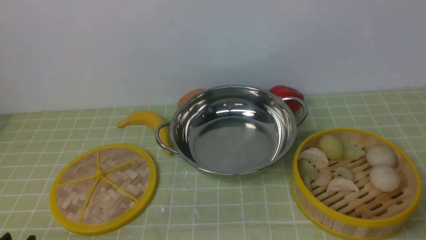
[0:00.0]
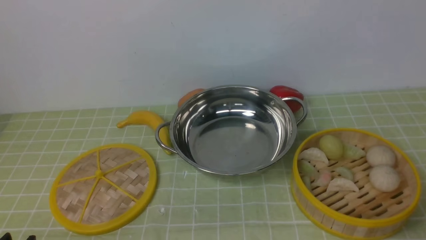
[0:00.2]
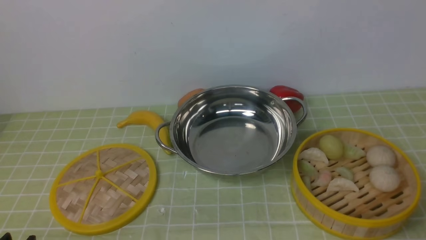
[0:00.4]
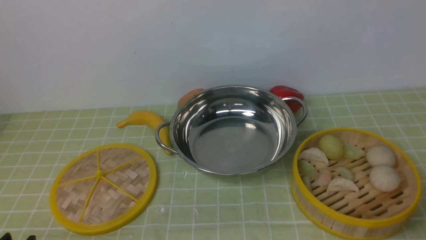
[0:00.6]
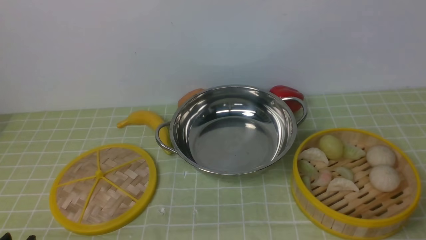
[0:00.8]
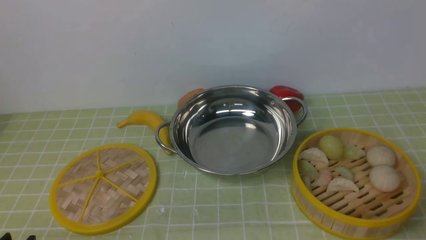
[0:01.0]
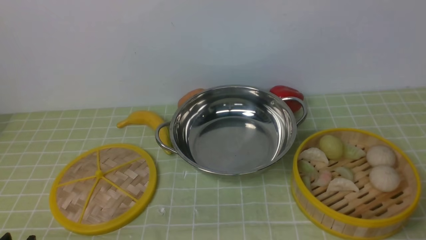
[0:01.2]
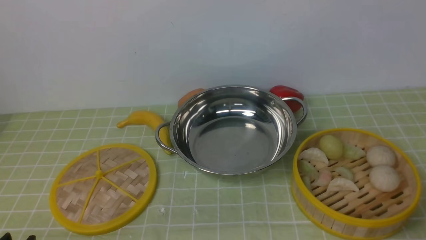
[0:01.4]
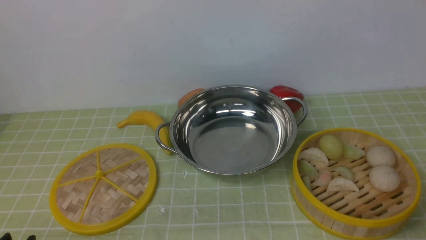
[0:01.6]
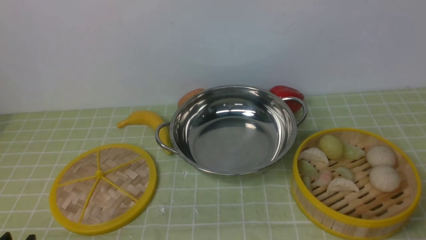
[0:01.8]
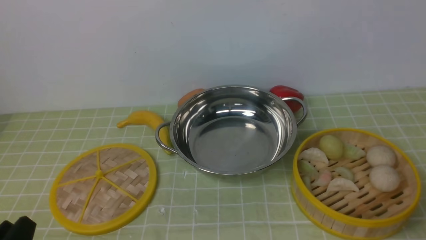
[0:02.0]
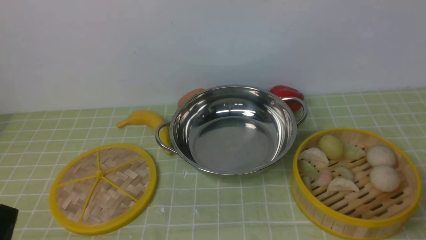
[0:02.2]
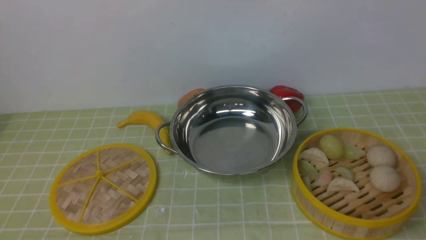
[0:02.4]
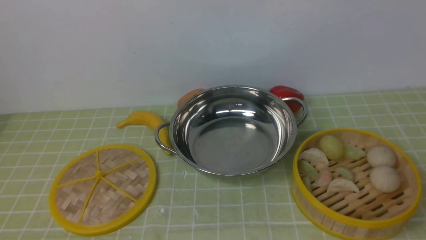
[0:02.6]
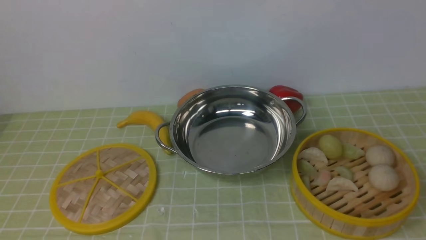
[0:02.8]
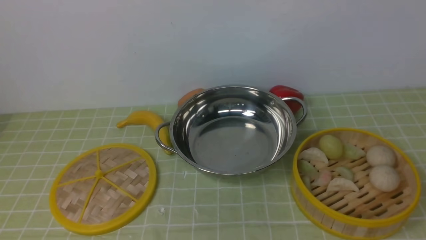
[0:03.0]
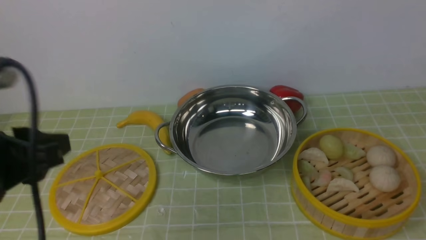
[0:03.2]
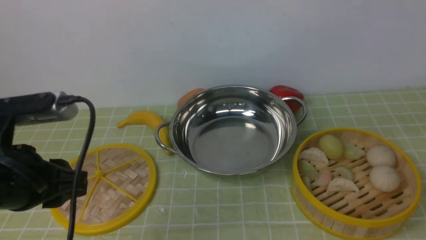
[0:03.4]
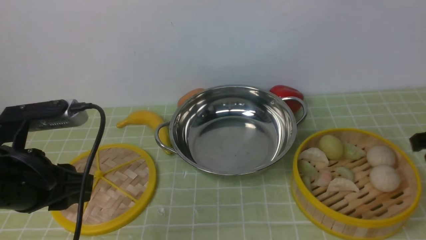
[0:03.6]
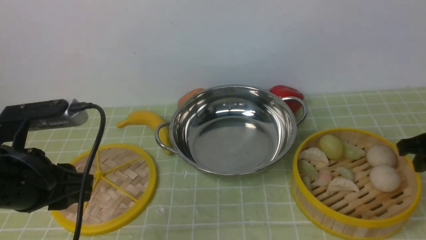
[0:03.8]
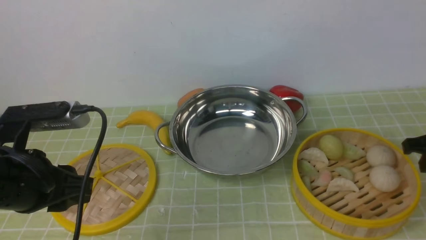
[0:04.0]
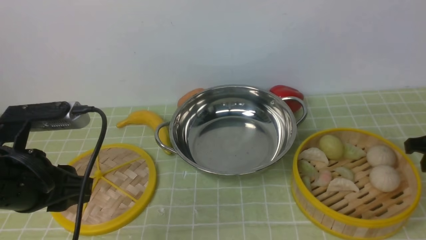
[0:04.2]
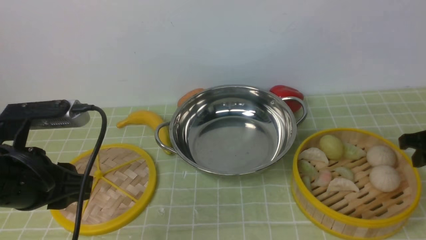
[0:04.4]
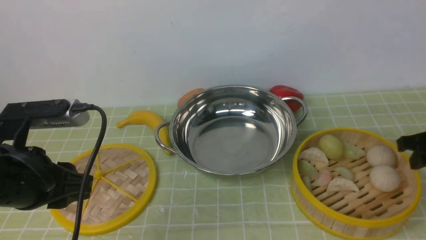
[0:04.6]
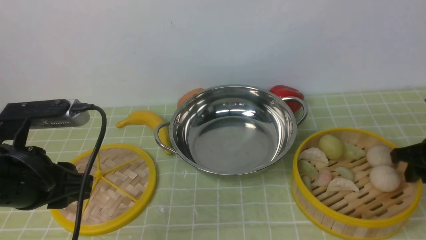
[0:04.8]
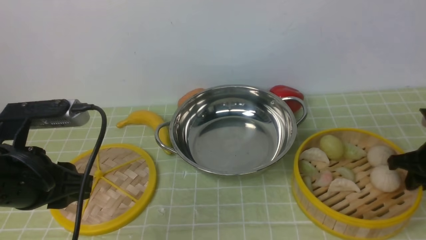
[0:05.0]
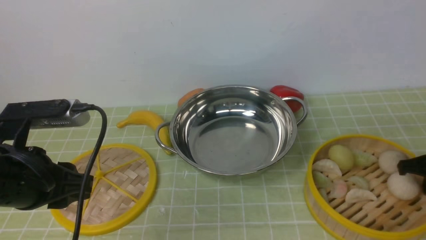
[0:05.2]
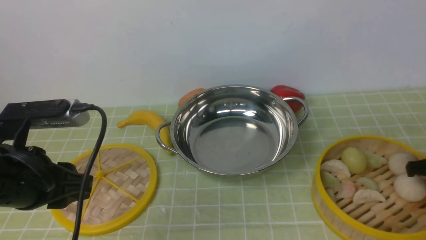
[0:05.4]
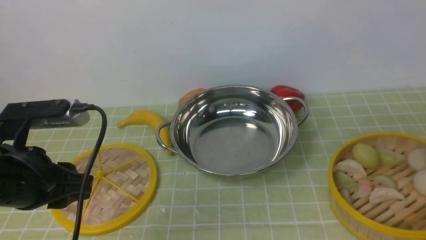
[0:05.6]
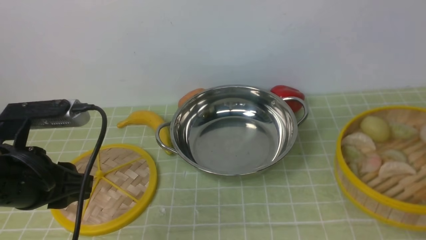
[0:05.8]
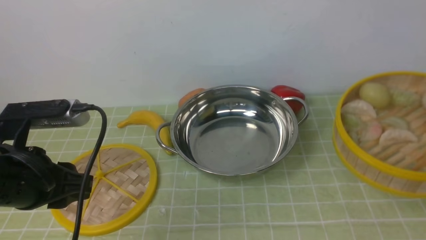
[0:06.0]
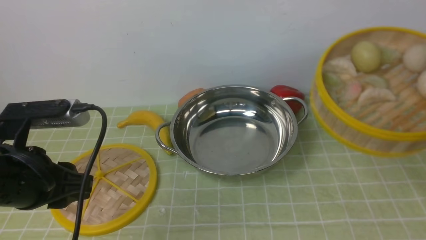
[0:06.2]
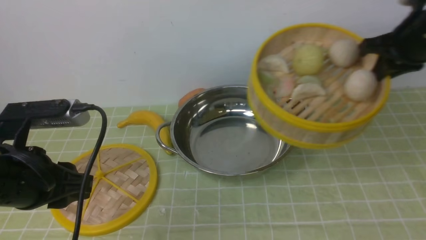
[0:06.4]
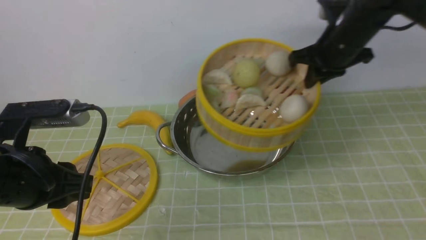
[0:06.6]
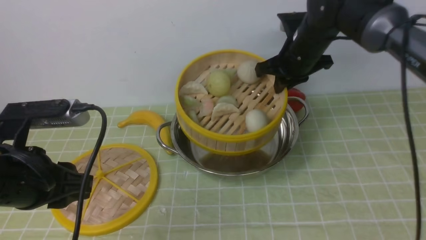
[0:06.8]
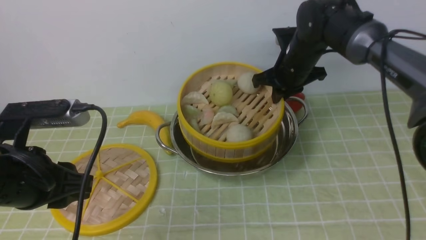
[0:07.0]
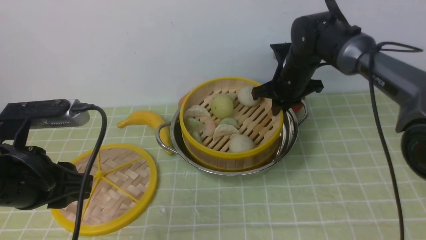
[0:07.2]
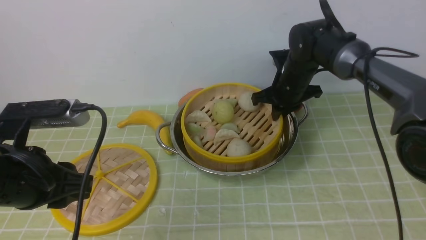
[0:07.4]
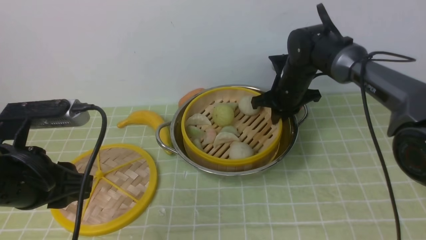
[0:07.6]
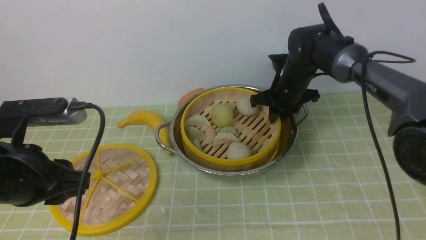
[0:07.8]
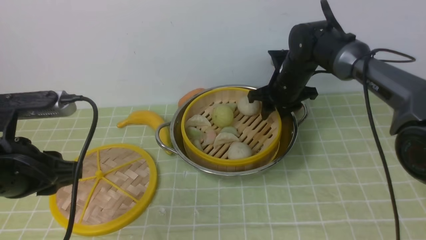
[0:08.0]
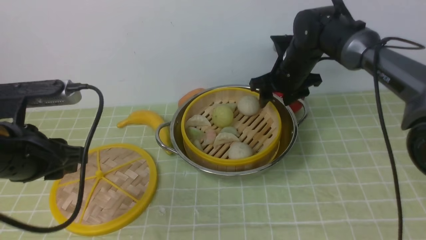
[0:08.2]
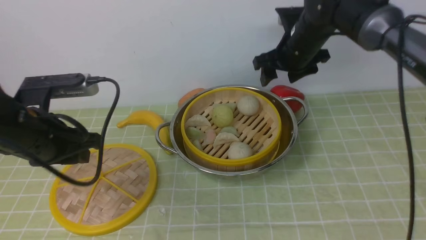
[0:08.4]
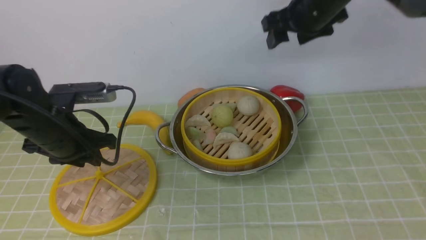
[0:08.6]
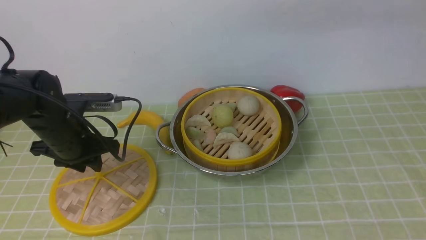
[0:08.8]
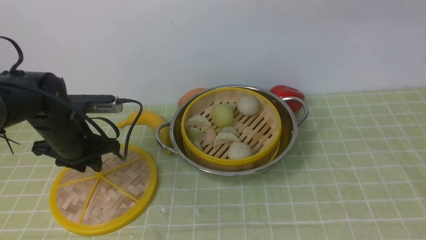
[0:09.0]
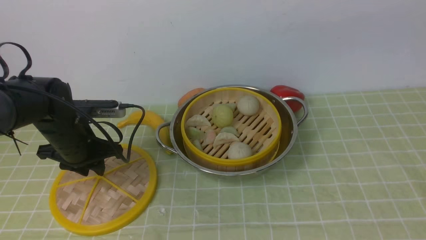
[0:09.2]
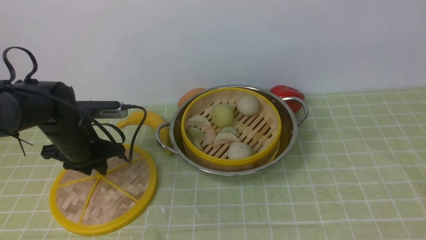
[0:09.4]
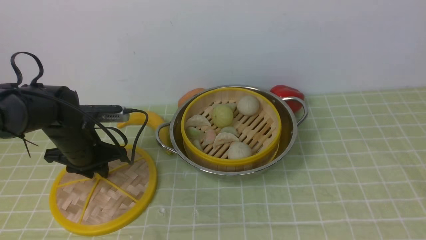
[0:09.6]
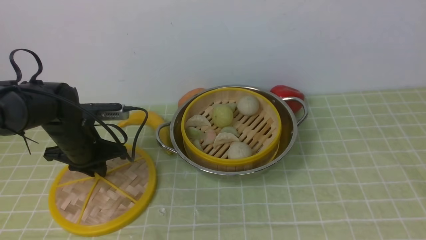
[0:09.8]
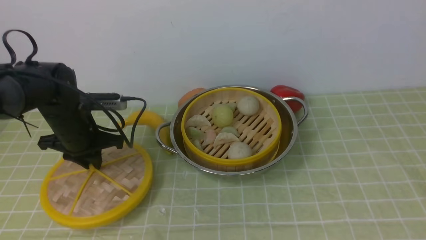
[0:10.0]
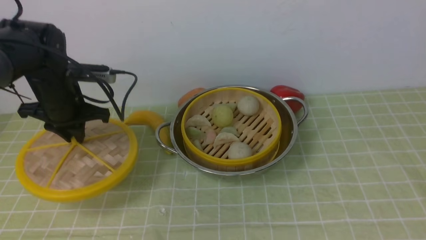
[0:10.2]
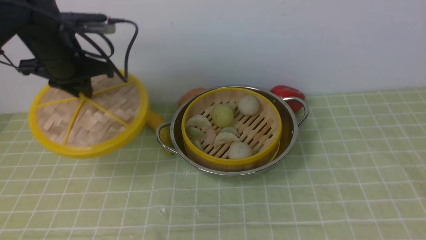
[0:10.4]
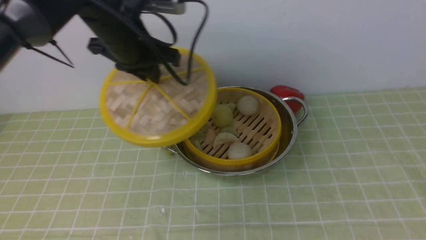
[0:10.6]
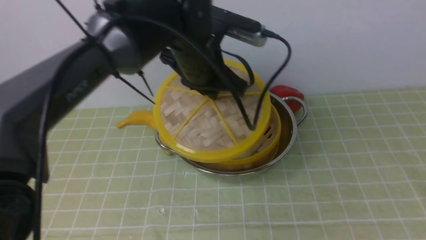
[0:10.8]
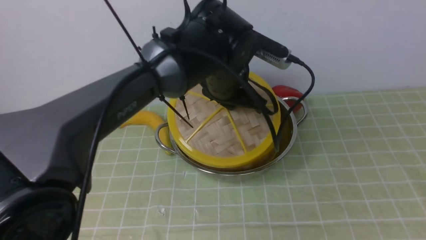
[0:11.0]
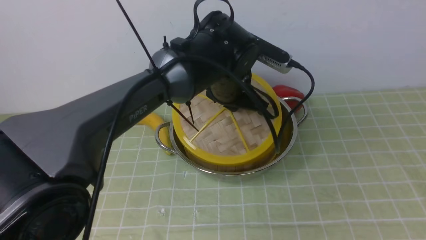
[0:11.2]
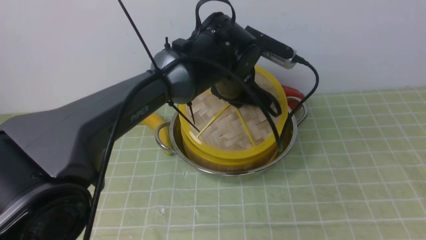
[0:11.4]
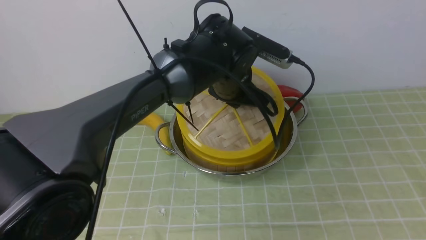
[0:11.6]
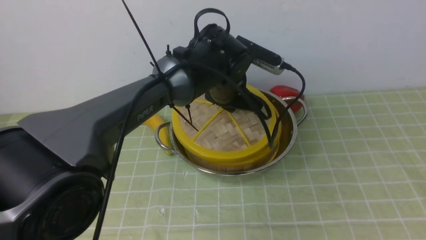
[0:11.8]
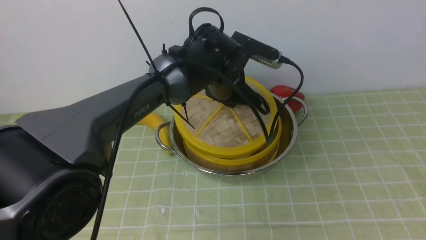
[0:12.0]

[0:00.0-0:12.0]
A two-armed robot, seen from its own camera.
Task of the whole recording: place the steamer in the pot on the green tablecloth, and put the lid on the steamer.
Step, 0:00.0 to 0:06.0: use the right arm to lift the steamer closest to it.
Step, 0:06.2 to 0:08.6: use the right arm to put the steamer into the iron steamer pot in the middle.
Step, 0:08.8 to 0:10.6: use the left arm to lift the lid of the steamer.
0:00.0 to 0:01.6: Neither gripper changes place.
0:03.0 to 0:04.4: The left gripper shifts some 10 cm forward and downward. Meanwhile the right gripper shifts about 30 cm downward and forward.
0:04.4 to 0:06.0: The right gripper goes approximately 10 cm upward.
0:06.0 to 0:07.6: The right gripper goes about 30 cm to the left, forward and downward.
0:07.6 to 0:09.0: The right gripper goes some 40 cm upward and backward, and opens up. Meanwhile the left gripper goes approximately 20 cm forward and downward.
0:09.0 to 0:10.4: The right gripper goes about 25 cm backward and to the right, while the left gripper moves upward and forward, about 15 cm.
0:10.4 to 0:12.0: The left gripper shifts roughly 20 cm to the right.

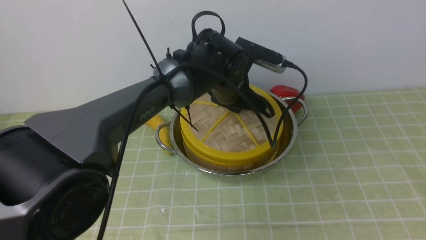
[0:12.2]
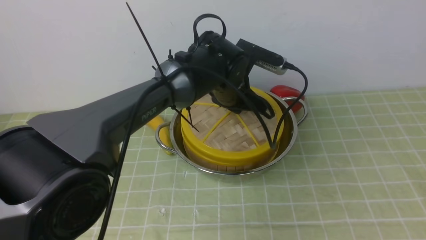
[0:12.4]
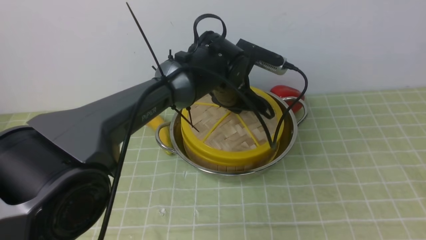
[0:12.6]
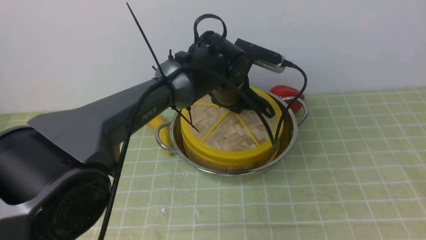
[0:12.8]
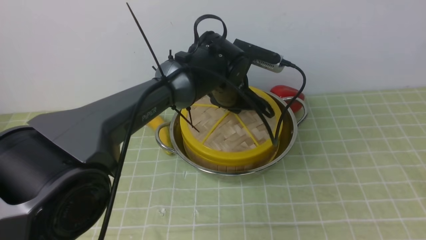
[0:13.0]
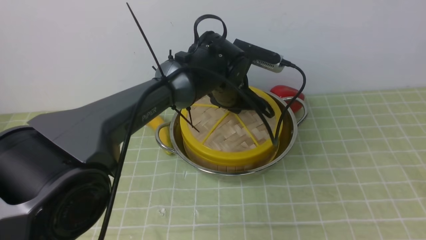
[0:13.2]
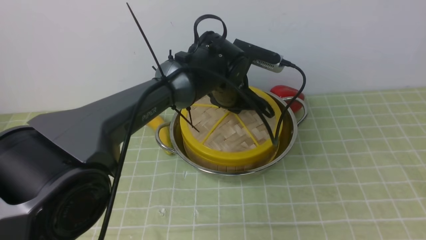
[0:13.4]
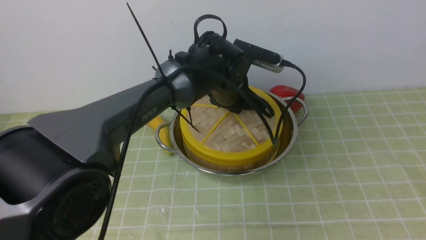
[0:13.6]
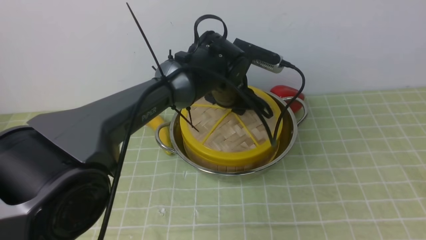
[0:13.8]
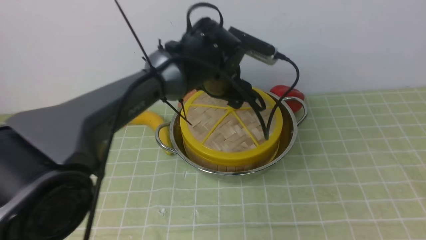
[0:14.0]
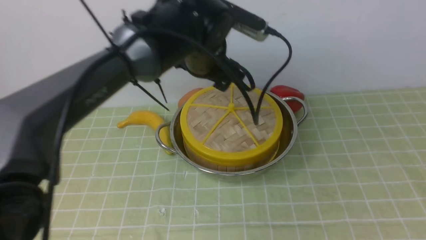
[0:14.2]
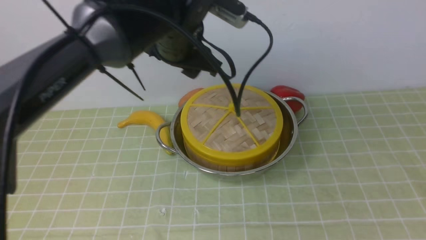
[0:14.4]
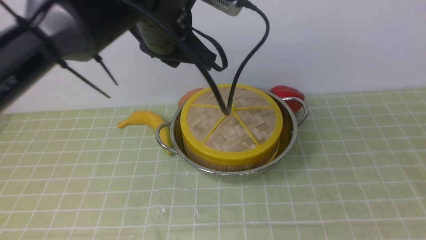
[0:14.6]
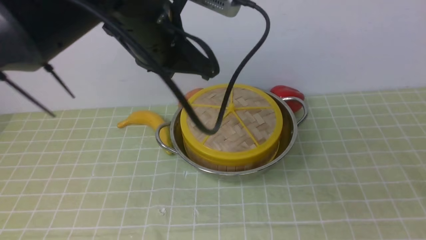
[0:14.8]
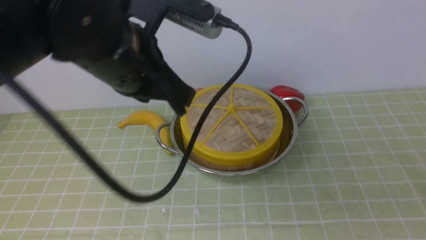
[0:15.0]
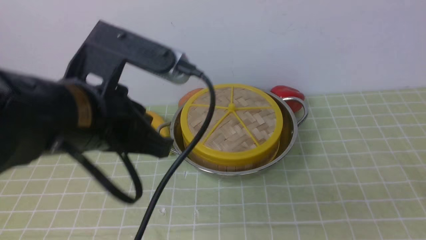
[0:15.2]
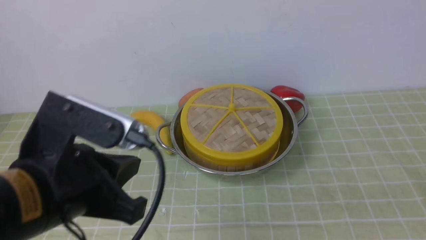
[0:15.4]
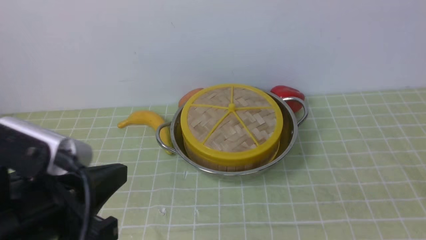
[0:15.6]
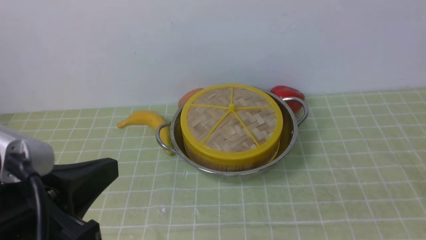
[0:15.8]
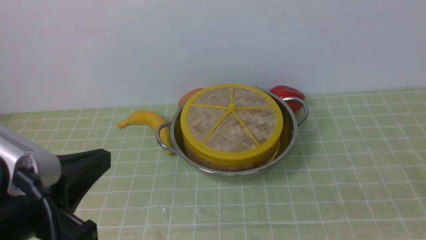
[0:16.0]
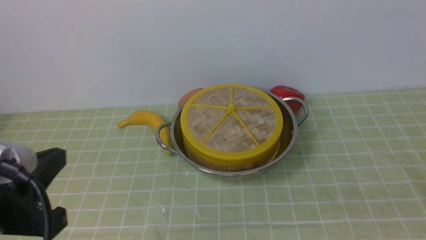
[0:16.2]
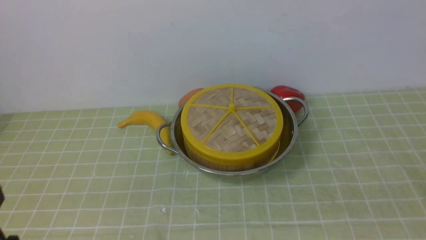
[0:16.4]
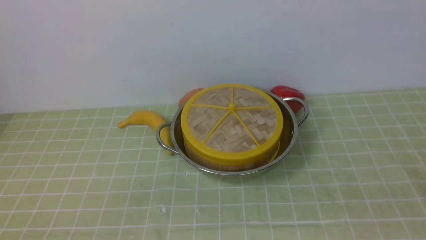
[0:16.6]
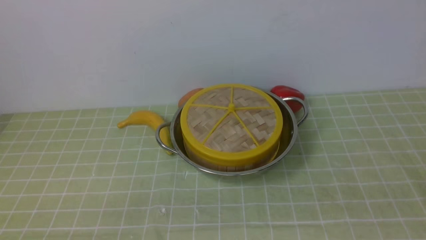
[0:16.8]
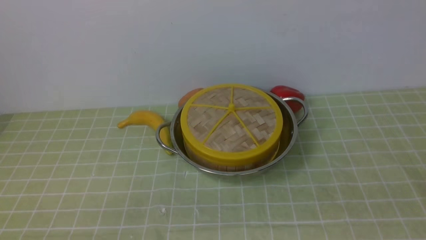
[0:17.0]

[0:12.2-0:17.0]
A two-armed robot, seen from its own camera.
Task of the whole recording: place the steamer in the pot on the green tablecloth, and put the lid on the steamer.
Step, 0:12.2 to 0:14.4: use the left arm to place the steamer lid on the steamer.
0:12.2 to 0:13.8: The left gripper opens.
0:13.8 to 0:15.4: The left gripper goes some 30 cm backward and to the left, and closes its fingers. Meanwhile the right gripper shifts about 20 cm downward, and closes its fingers.
0:15.4 to 0:17.0: The left gripper goes about 20 cm downward, to the left and backward.
